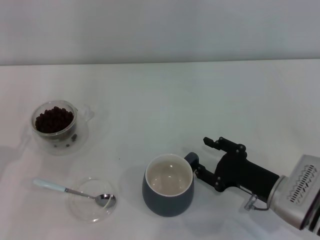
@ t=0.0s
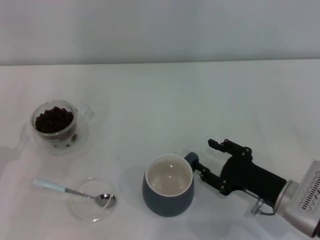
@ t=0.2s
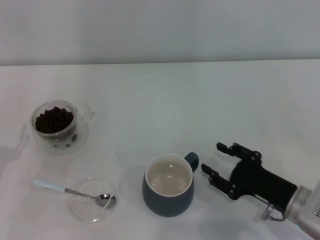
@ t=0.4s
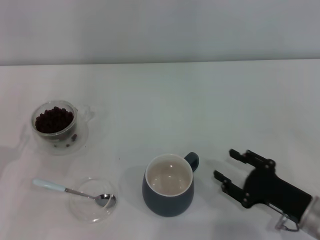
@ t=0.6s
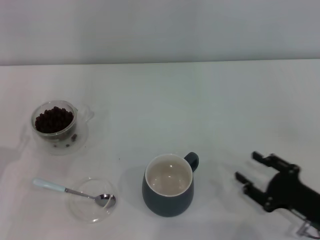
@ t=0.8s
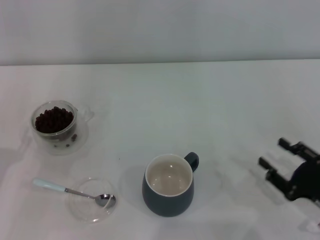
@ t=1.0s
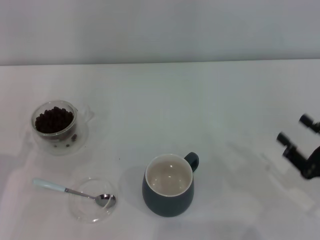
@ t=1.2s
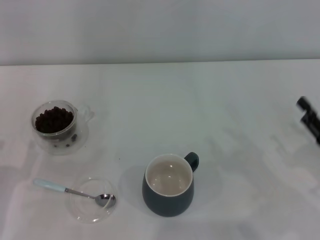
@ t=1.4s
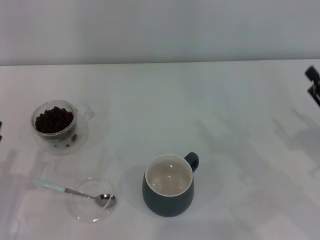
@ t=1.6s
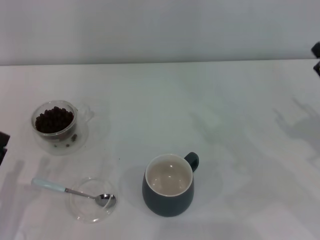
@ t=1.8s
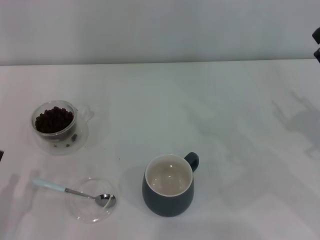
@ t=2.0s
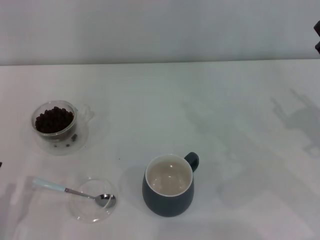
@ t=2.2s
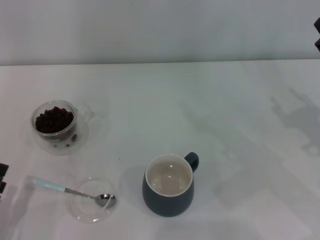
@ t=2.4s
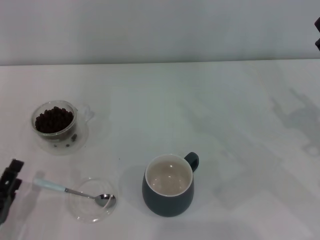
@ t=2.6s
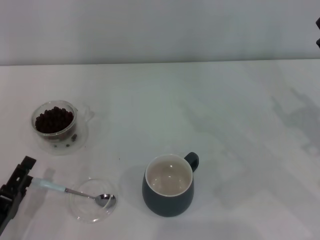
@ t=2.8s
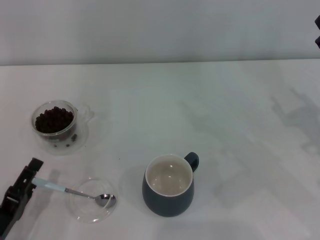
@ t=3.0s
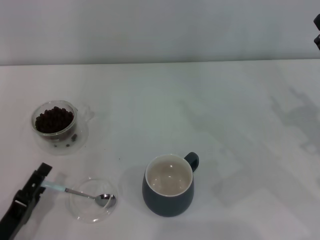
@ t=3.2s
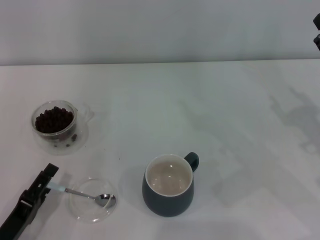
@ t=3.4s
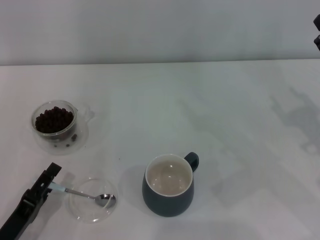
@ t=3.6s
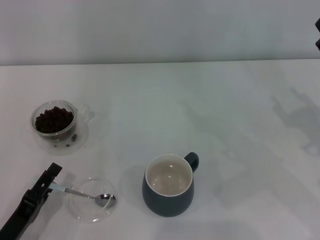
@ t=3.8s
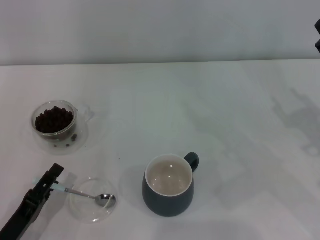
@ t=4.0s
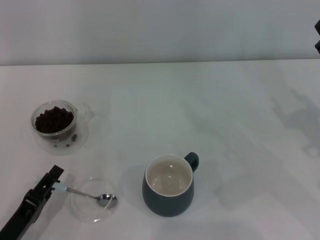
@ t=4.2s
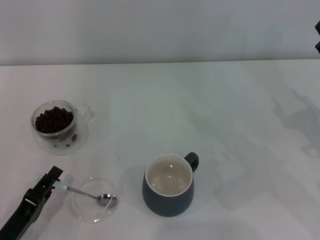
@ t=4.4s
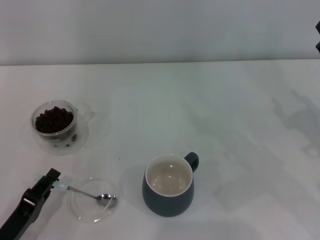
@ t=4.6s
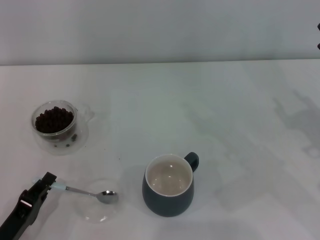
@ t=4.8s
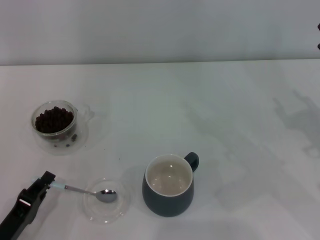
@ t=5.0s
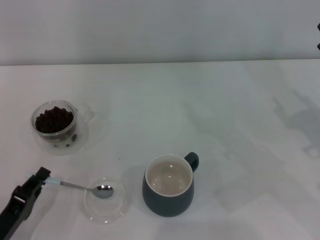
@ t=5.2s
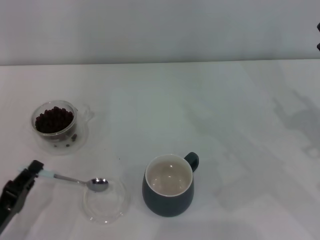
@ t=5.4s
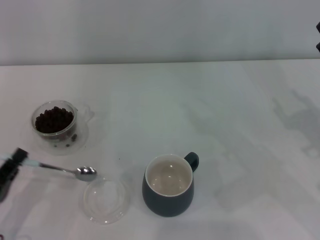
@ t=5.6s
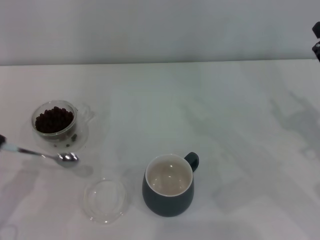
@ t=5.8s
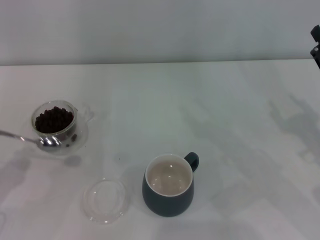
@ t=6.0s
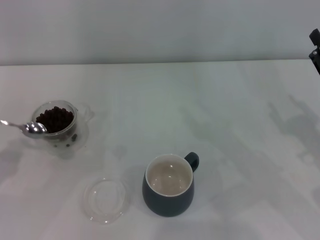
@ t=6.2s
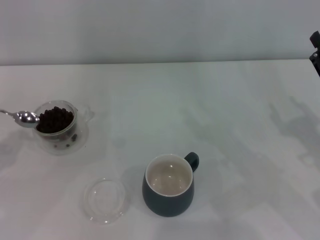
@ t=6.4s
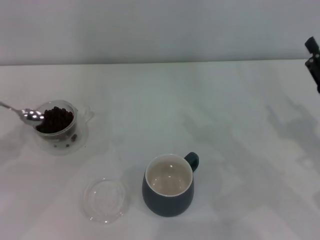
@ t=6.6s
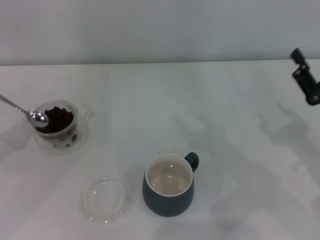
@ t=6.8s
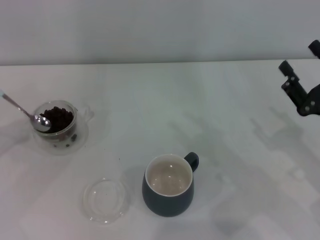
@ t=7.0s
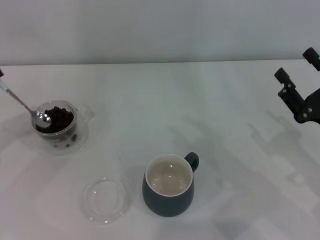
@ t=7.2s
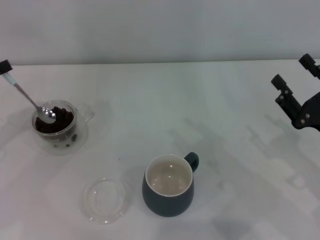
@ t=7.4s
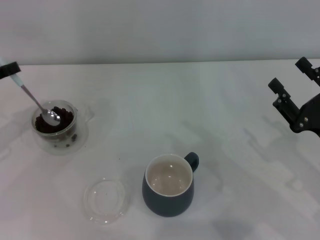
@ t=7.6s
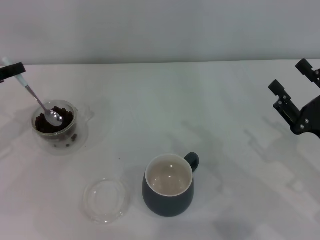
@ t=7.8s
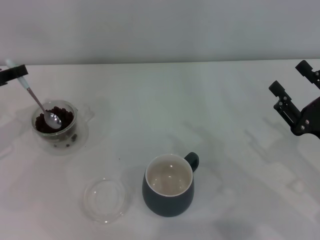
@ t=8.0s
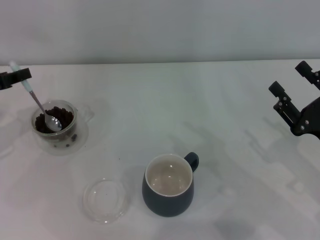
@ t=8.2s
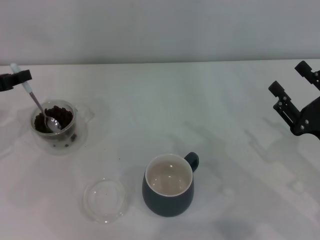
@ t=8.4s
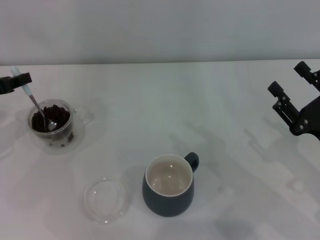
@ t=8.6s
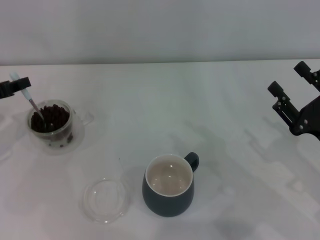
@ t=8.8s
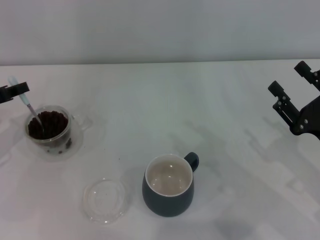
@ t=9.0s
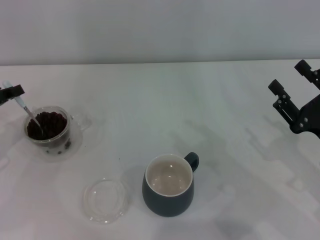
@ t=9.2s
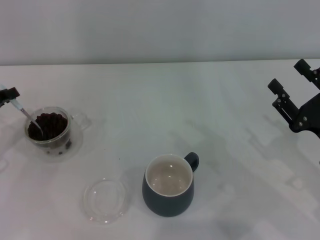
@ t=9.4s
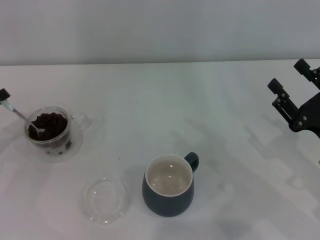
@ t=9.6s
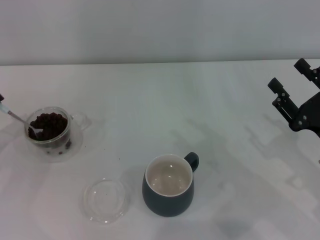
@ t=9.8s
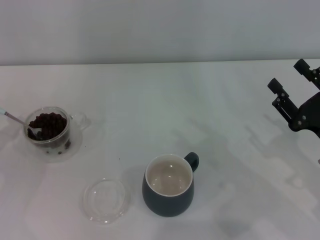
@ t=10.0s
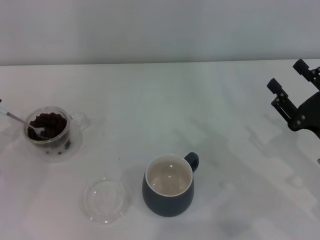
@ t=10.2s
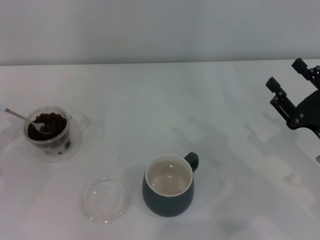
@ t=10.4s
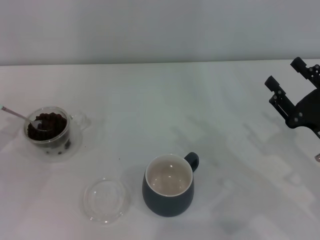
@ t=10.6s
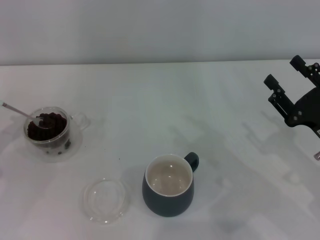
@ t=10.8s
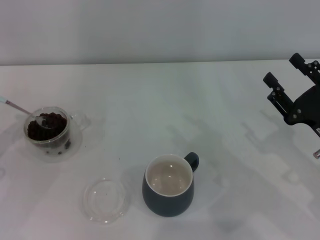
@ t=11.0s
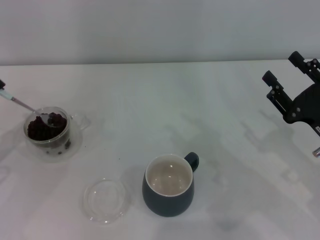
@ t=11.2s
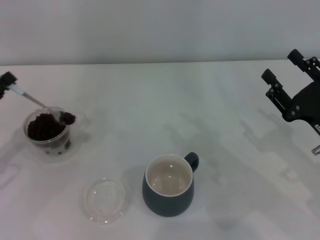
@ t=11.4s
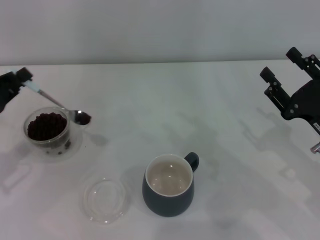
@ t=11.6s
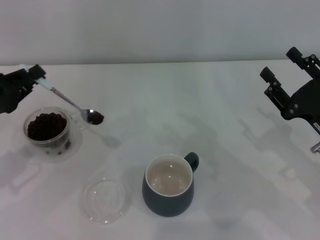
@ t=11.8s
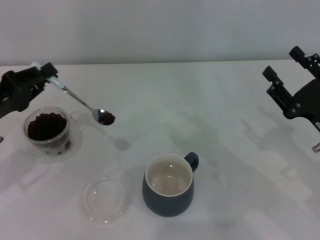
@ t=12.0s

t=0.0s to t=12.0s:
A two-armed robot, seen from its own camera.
Task of the whole recording: Use a blue spoon to take out the coffee beans from the glass and pour them into the gray cup.
Step, t=1.0s to t=5.4s: Pick up the spoon with the right gripper.
t=0.0s to t=1.6s: The left gripper travels backward by some 5 cm, while the right gripper heads to the right and upward, covering some 15 cm.
t=1.6s to t=3.0s: The right gripper changes place by some 5 cm.
t=3.0s to t=4.4s: The left gripper closes up.
t=4.4s to t=6.0s: The left gripper travels to the left and upward by roughly 10 cm, and closes its fingers.
t=6.0s to t=7.6s: The left gripper heads forward and upward, covering roughly 15 cm.
t=7.6s to t=9.0s: There are only small adjustments of the grippers.
t=9.0s to t=10.4s: The left gripper goes some 5 cm backward.
t=10.4s to t=12.0s: The left gripper travels to the right by some 5 cm.

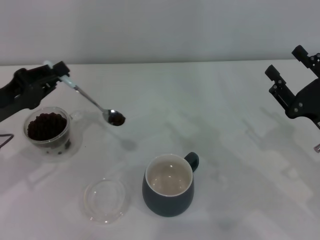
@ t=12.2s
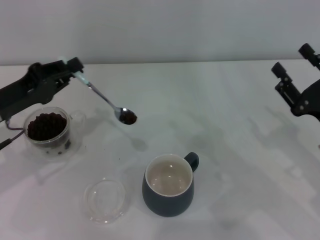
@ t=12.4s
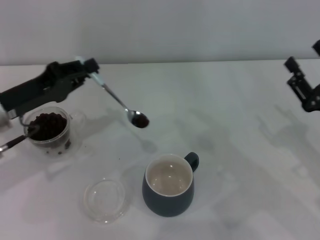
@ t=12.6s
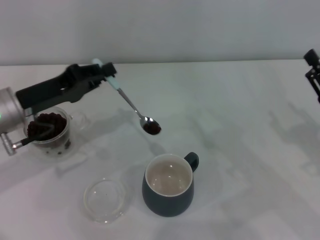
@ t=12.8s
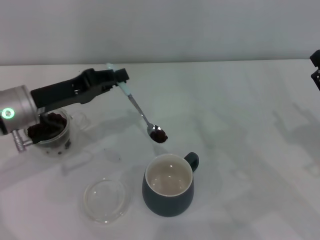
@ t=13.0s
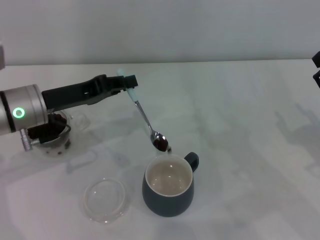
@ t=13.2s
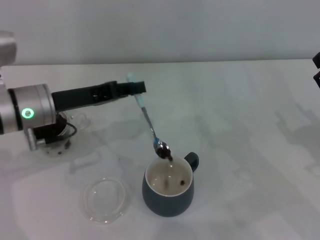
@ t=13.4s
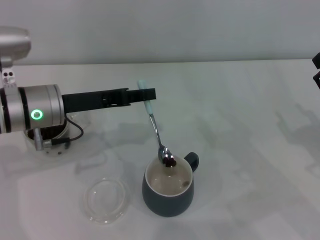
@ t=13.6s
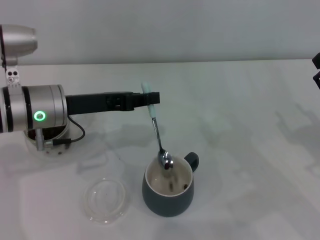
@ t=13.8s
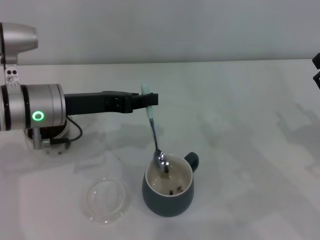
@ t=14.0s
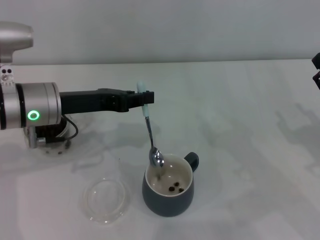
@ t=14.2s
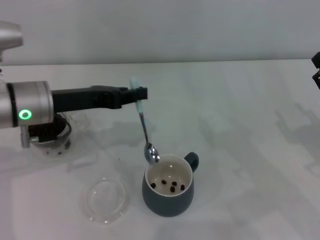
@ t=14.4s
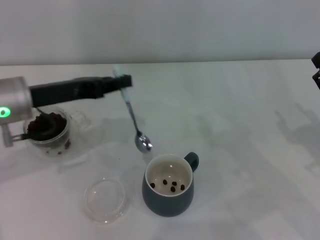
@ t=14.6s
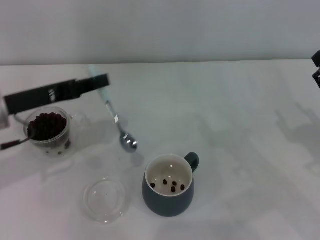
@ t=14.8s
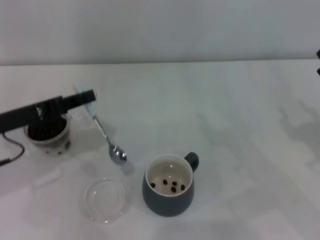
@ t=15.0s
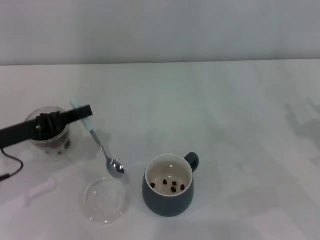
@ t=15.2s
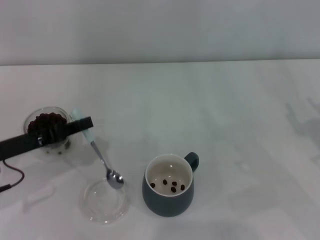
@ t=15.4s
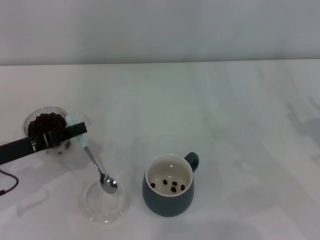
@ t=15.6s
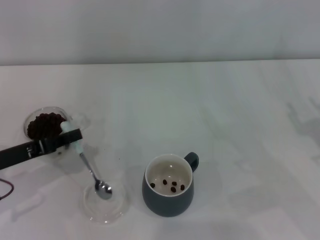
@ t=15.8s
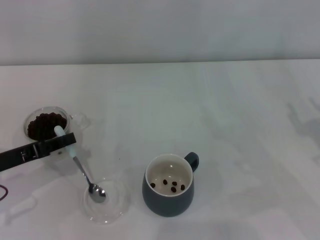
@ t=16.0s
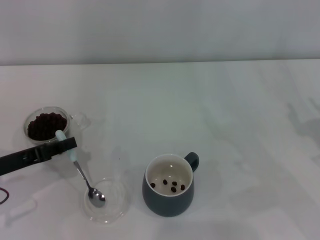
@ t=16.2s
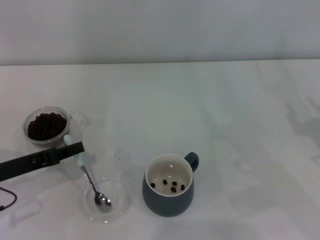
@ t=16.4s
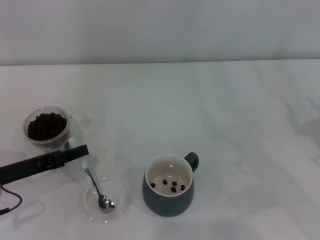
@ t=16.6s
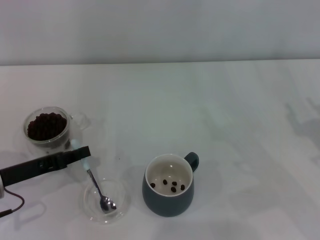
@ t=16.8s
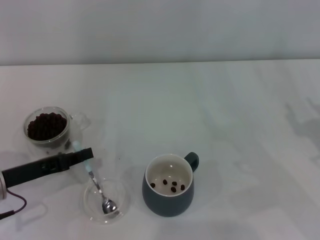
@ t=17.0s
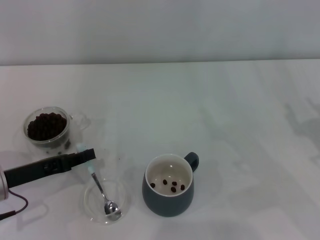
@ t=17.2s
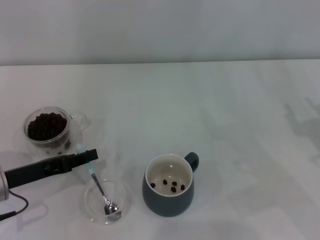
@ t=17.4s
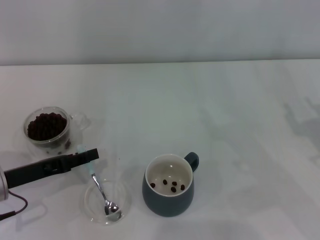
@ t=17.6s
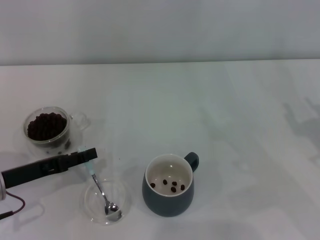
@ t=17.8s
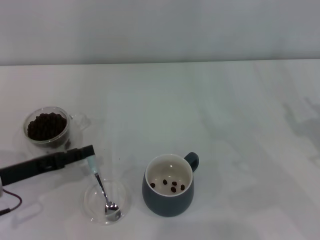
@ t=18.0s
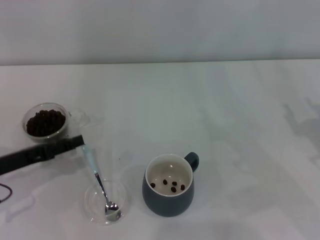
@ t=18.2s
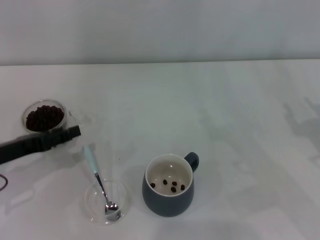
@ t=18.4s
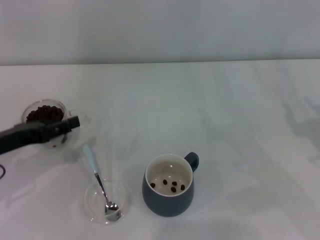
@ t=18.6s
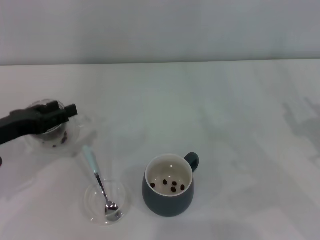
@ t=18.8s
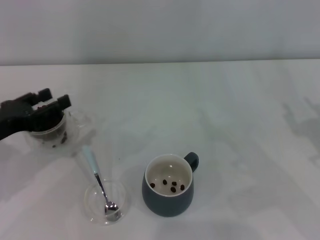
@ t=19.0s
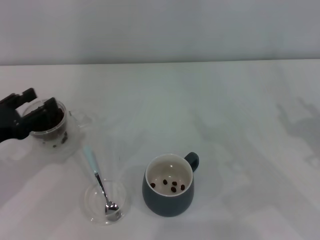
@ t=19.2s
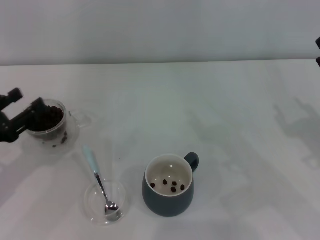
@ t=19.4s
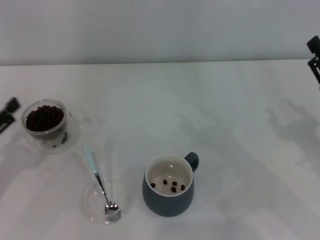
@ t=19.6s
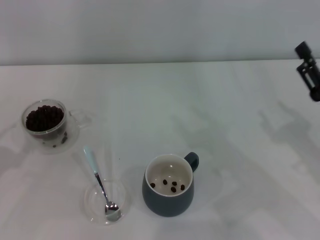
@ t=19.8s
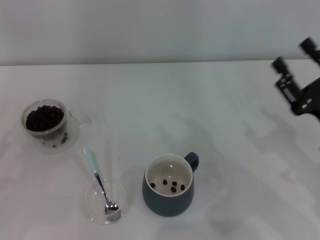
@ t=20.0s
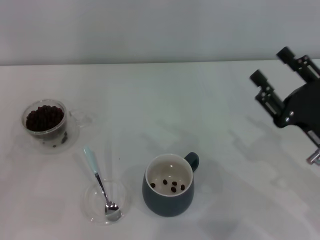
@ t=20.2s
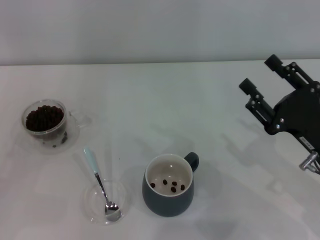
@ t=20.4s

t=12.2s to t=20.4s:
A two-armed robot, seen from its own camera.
Task of the whole recording: Use a blue spoon to take out the coffee beans from the glass and pour them into the gray cup.
Step, t=12.2s to t=14.6s: Scoop a spoonful of beans into the cup with the right gripper.
t=12.2s to t=13.8s: The left gripper shifts some 10 cm to the right.
t=13.8s to t=15.4s: The left gripper moves to the left and backward, roughly 10 cm.
t=15.4s to t=17.2s: The grippers move only a little.
t=17.2s to t=18.8s: The left gripper changes place by some 5 cm, and opens.
t=18.8s to t=20.4s: The left gripper is displaced to the left and backward by roughly 10 cm. Meanwhile the right gripper travels to the left by some 5 cm.
